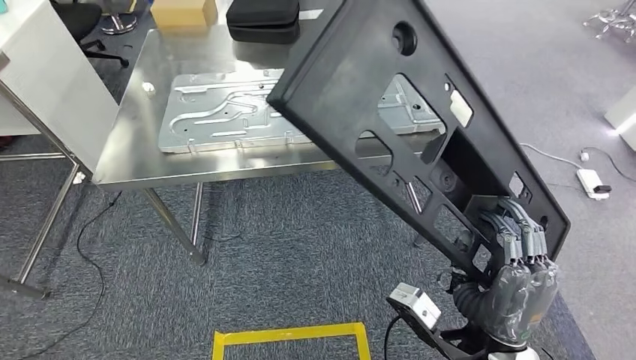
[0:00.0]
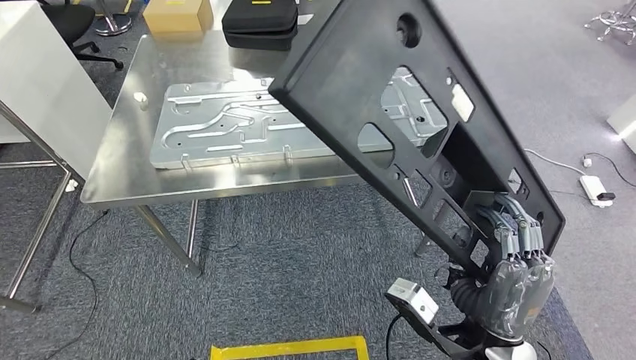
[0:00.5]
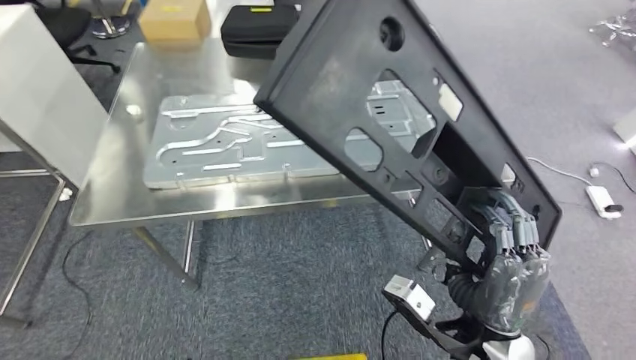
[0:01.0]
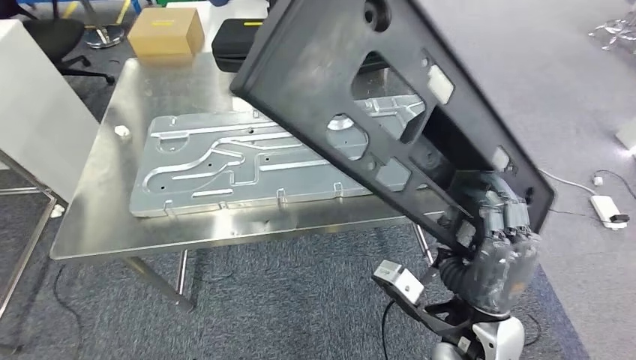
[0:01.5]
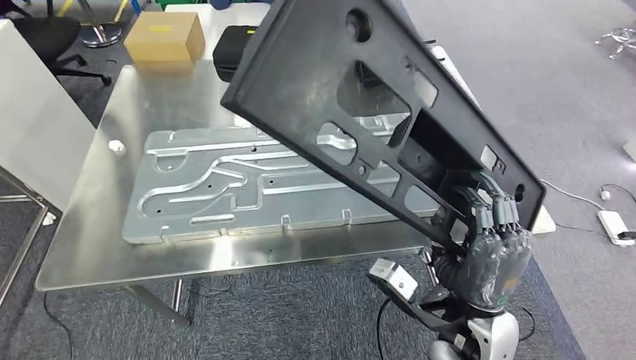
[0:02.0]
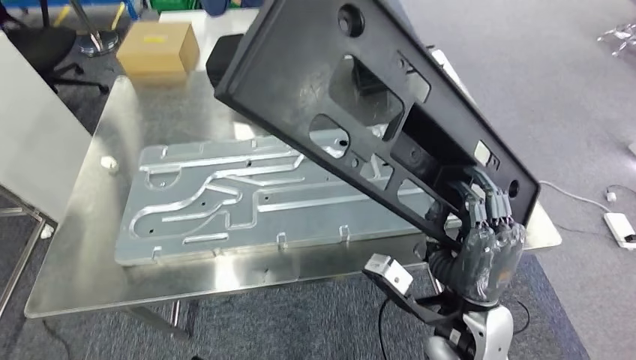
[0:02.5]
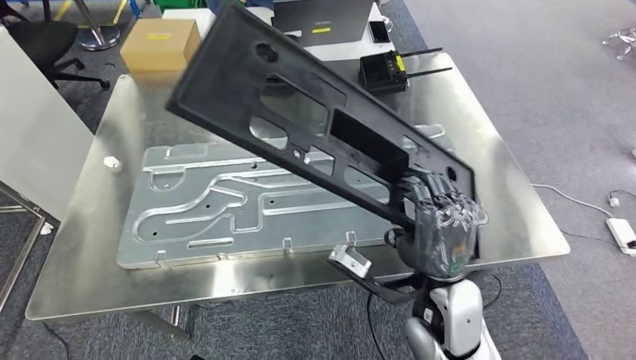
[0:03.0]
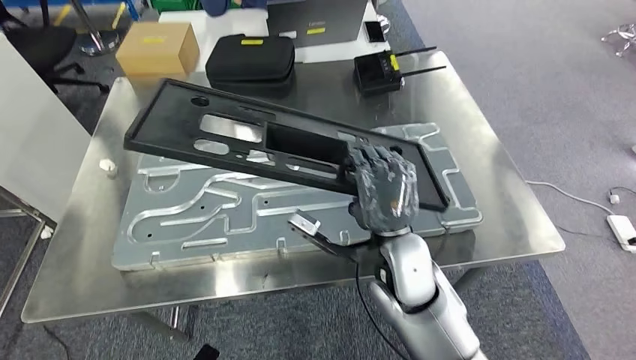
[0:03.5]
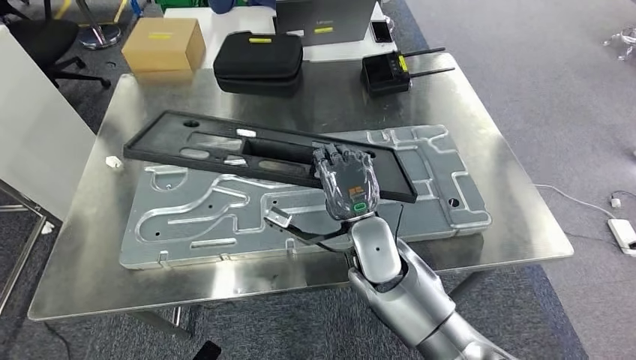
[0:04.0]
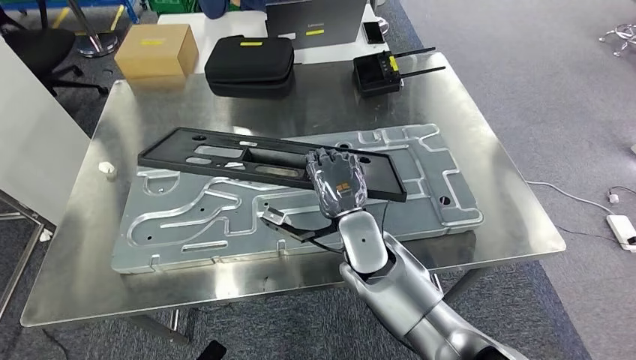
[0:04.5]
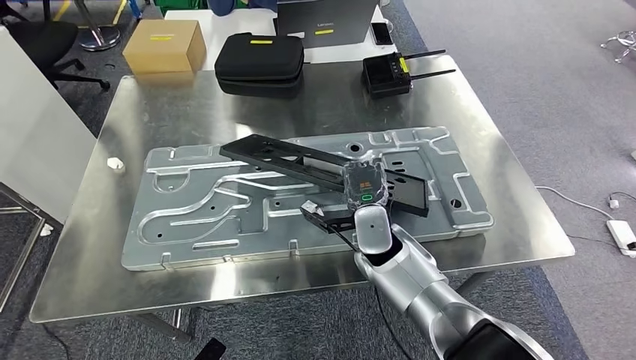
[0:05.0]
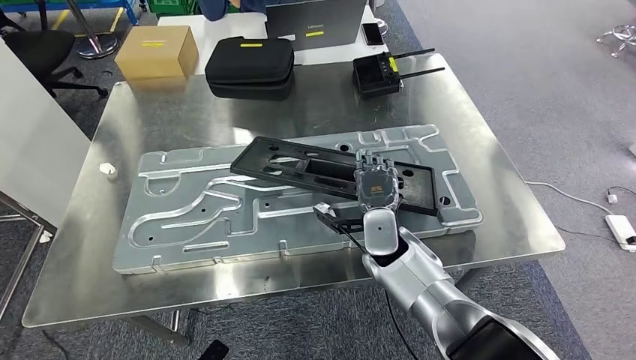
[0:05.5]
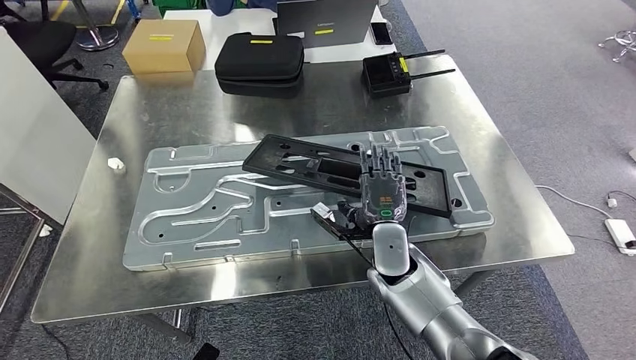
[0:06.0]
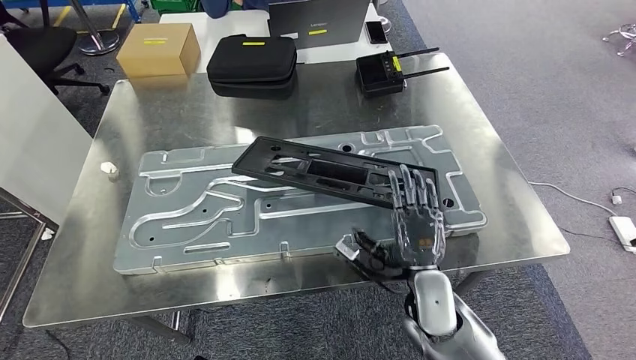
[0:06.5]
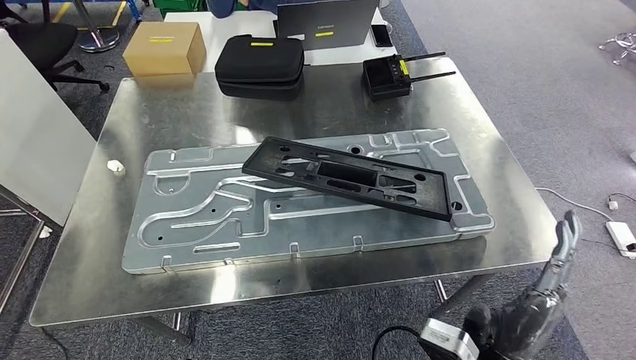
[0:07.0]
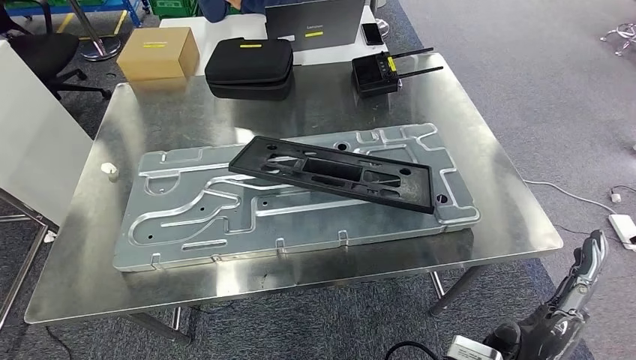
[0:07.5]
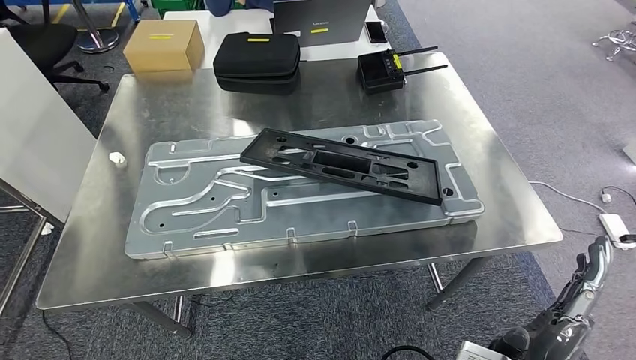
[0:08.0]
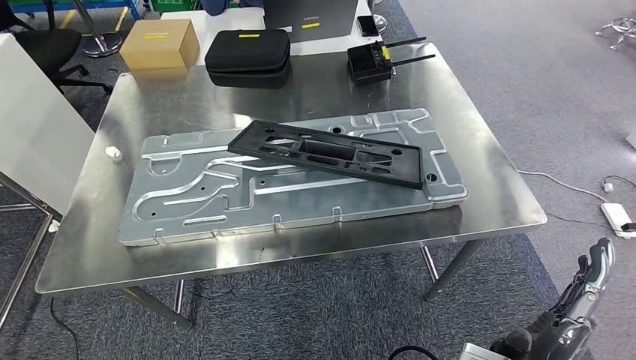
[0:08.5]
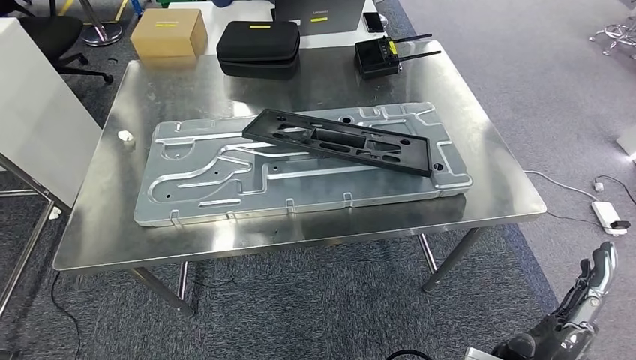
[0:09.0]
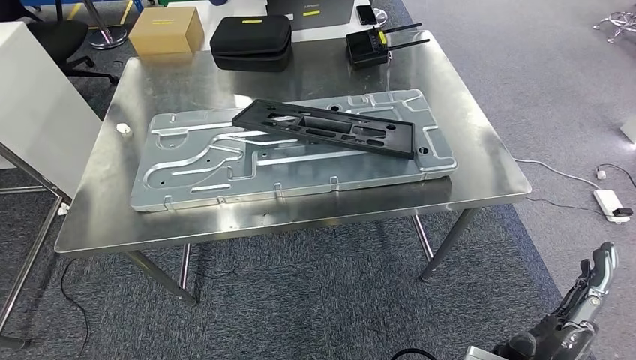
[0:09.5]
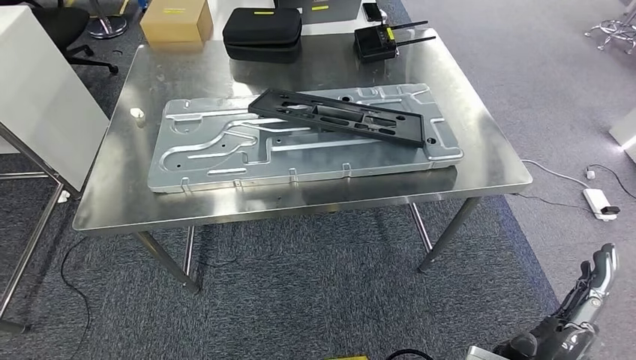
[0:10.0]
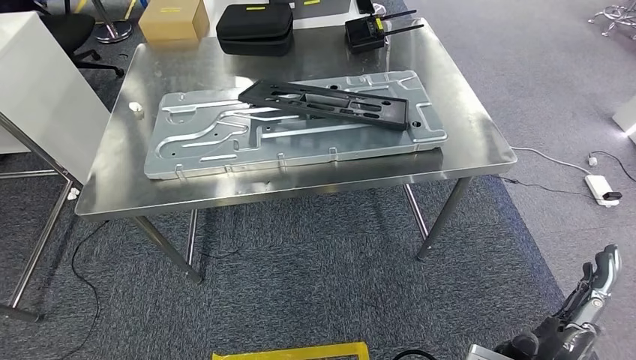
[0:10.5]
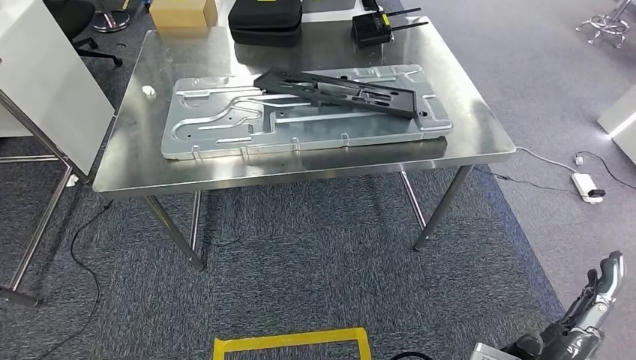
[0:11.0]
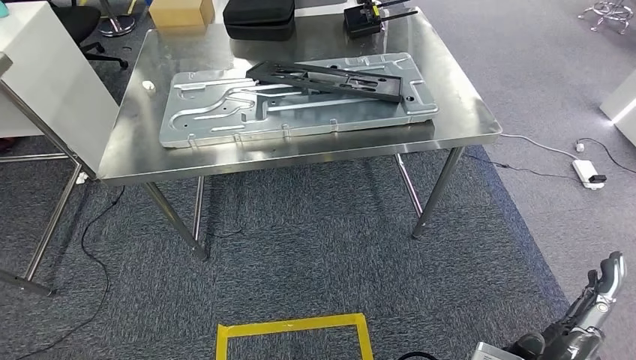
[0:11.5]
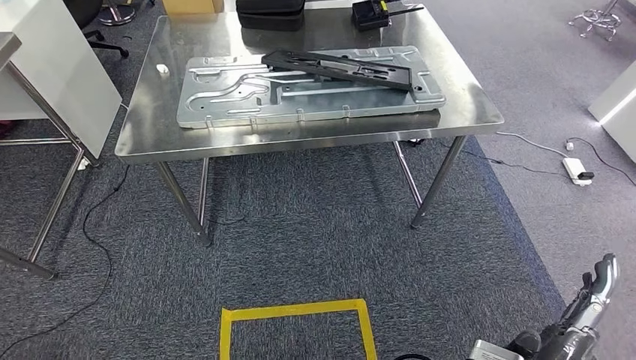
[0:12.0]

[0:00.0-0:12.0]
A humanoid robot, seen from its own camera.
Step, 0:01.5 to 0:07.0: Insert the large material into the corresponding slot on the workbench.
0:04.0 to 0:06.0: The right hand moves downward and to the right, roughly 10 cm.

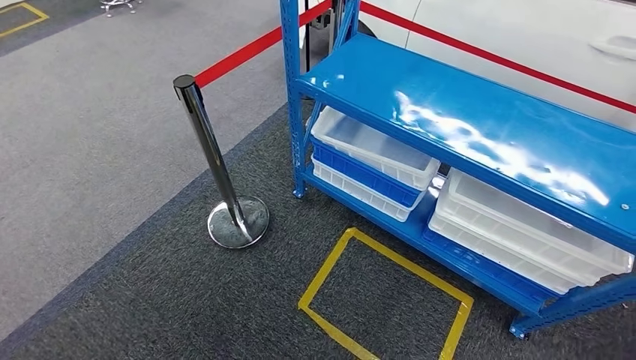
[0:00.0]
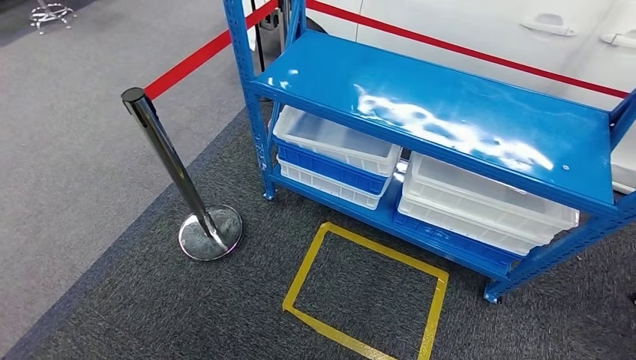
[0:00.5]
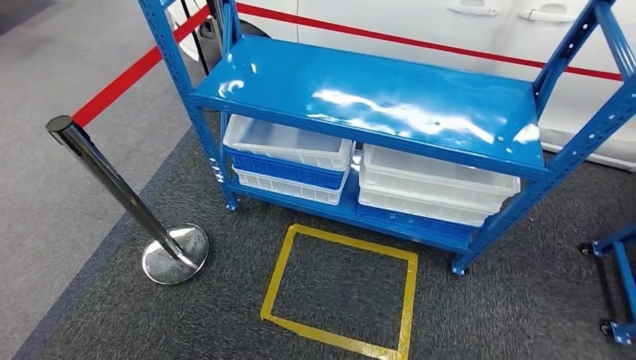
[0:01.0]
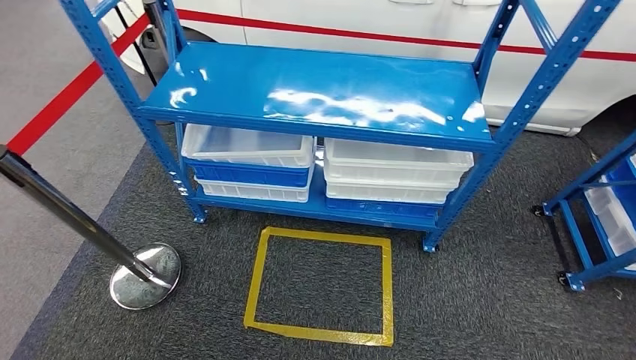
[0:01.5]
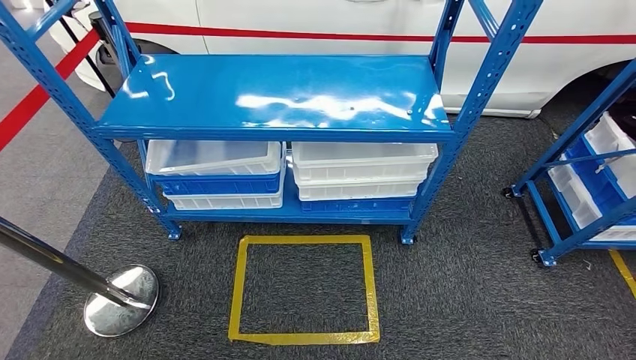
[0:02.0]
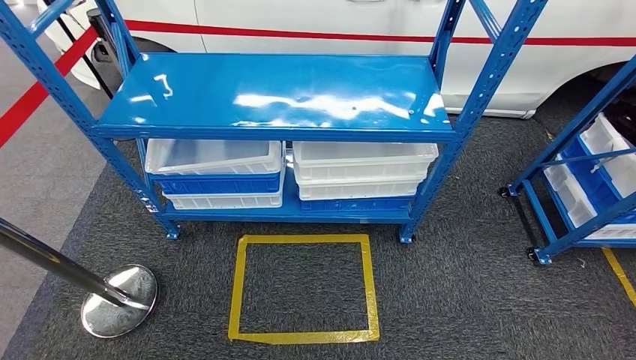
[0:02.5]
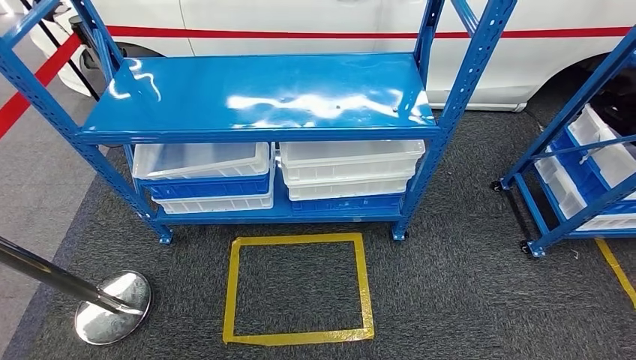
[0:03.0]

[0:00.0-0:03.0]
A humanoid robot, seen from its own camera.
Step, 0:00.0 to 0:03.0: Move to the initial position of the shelf.
